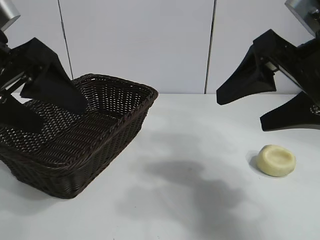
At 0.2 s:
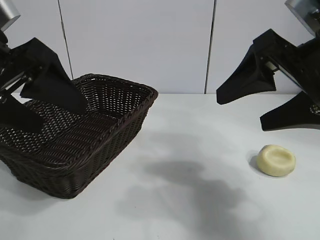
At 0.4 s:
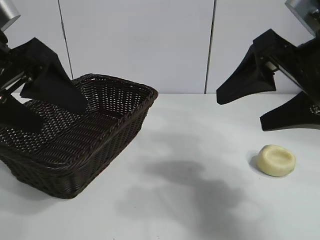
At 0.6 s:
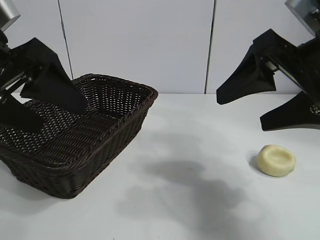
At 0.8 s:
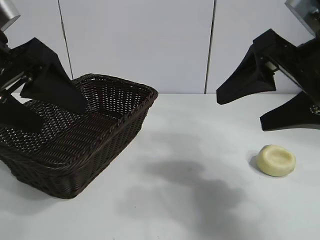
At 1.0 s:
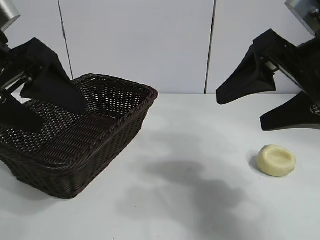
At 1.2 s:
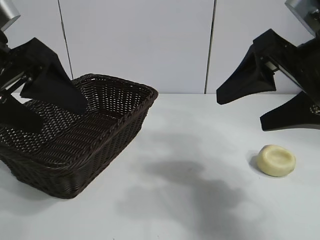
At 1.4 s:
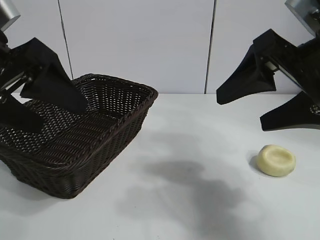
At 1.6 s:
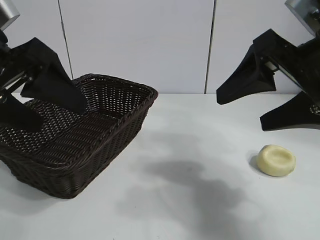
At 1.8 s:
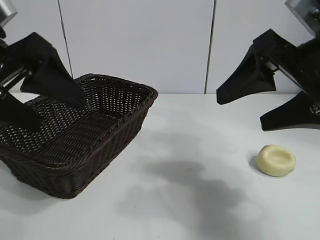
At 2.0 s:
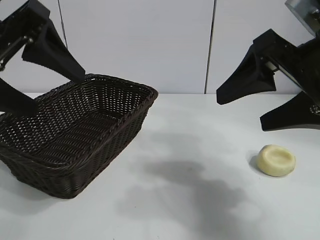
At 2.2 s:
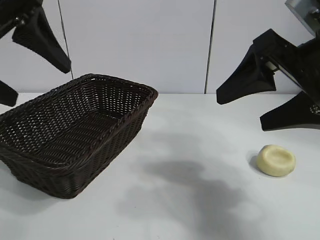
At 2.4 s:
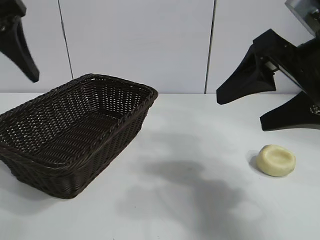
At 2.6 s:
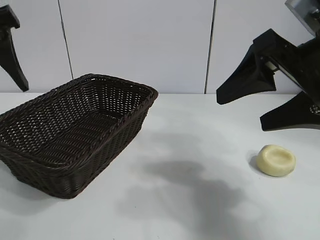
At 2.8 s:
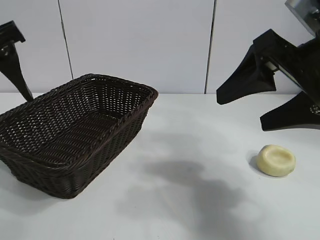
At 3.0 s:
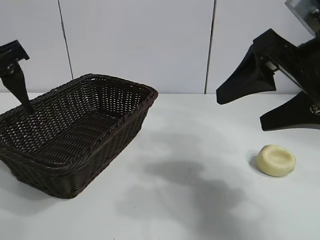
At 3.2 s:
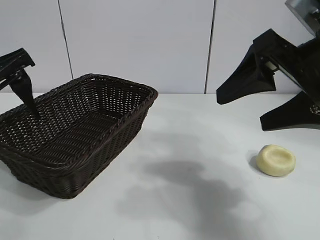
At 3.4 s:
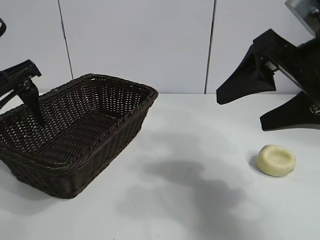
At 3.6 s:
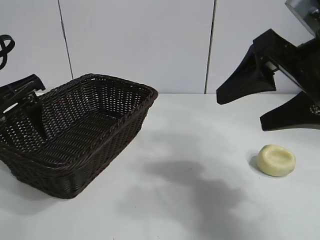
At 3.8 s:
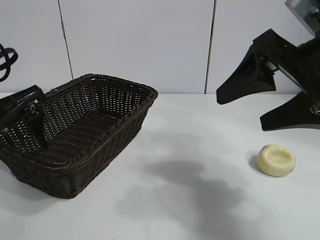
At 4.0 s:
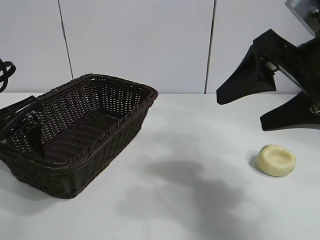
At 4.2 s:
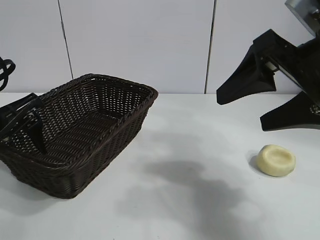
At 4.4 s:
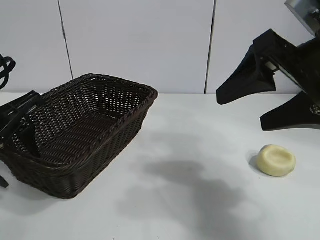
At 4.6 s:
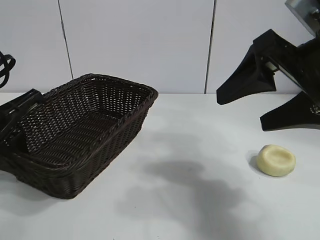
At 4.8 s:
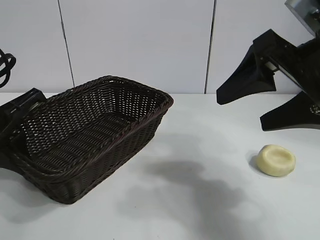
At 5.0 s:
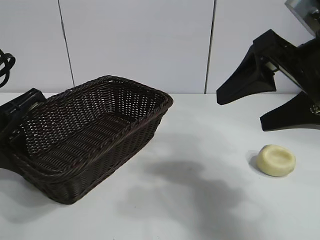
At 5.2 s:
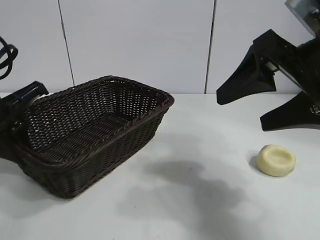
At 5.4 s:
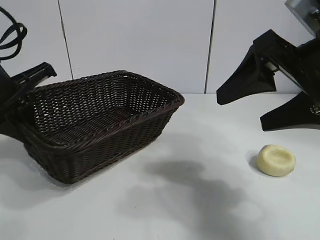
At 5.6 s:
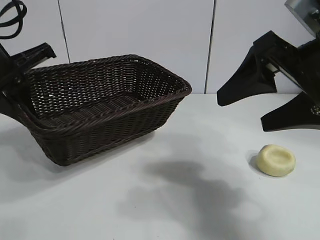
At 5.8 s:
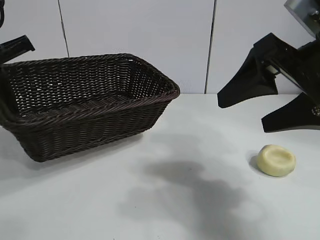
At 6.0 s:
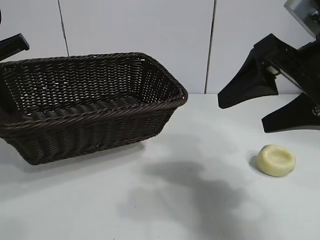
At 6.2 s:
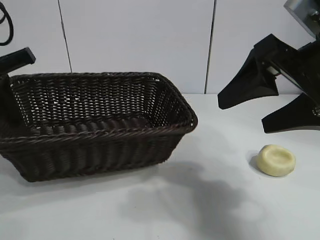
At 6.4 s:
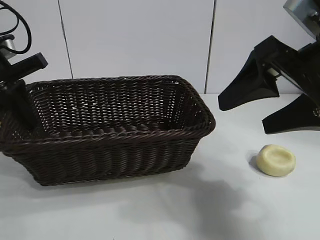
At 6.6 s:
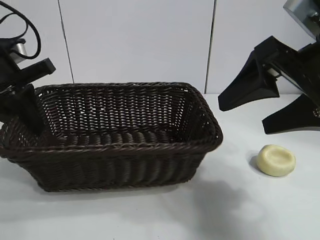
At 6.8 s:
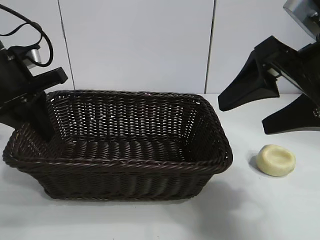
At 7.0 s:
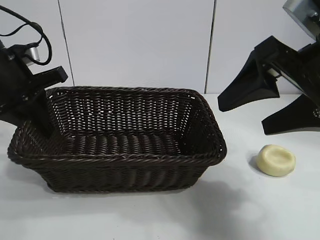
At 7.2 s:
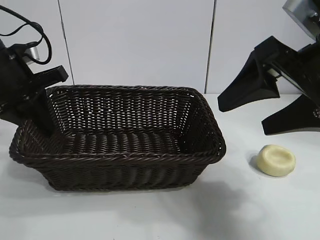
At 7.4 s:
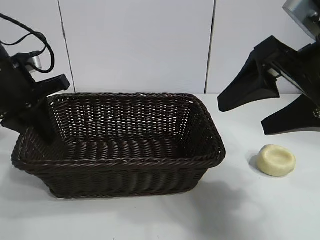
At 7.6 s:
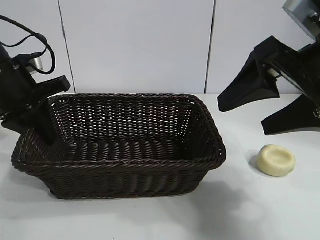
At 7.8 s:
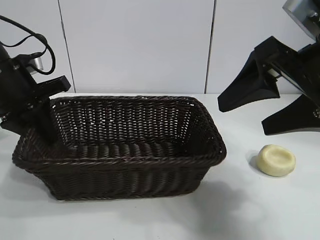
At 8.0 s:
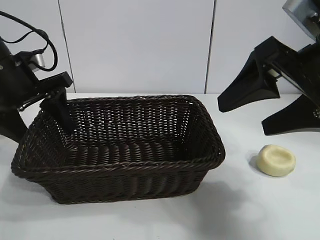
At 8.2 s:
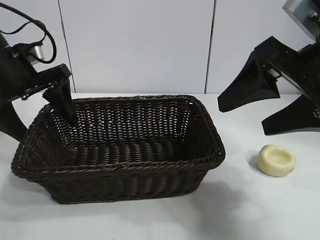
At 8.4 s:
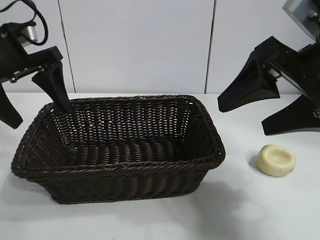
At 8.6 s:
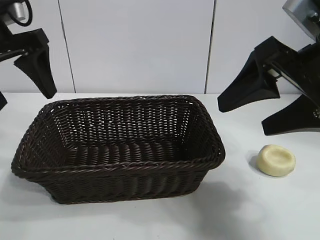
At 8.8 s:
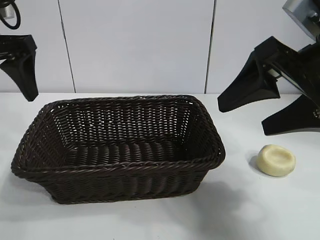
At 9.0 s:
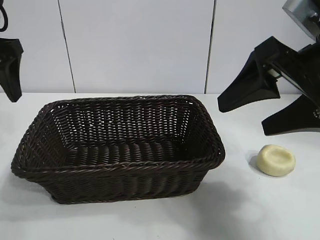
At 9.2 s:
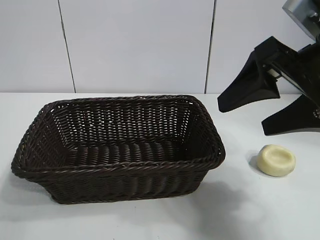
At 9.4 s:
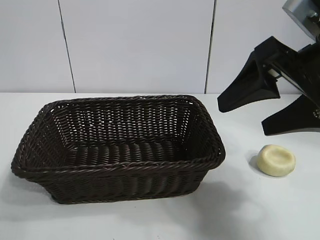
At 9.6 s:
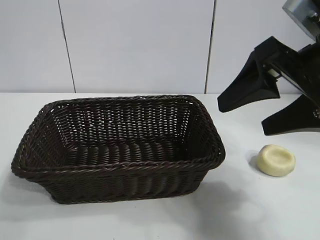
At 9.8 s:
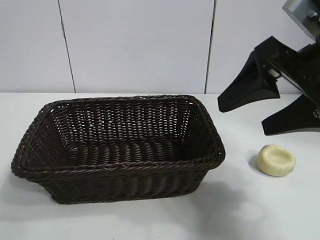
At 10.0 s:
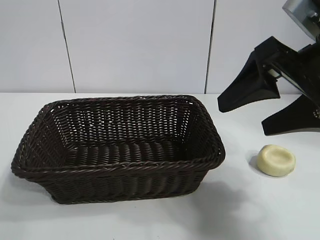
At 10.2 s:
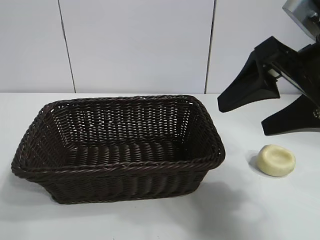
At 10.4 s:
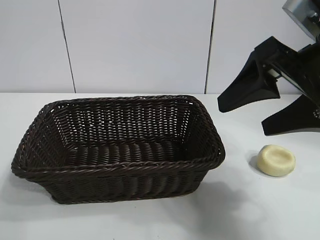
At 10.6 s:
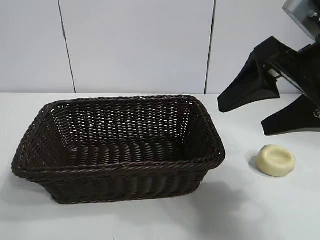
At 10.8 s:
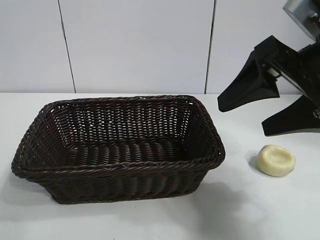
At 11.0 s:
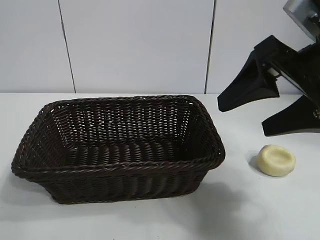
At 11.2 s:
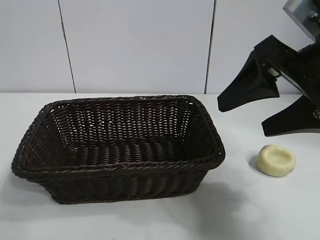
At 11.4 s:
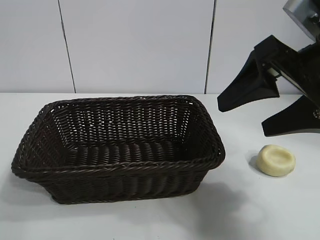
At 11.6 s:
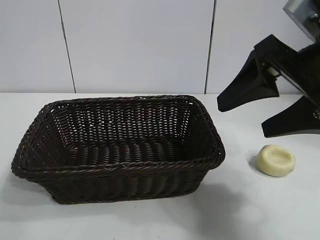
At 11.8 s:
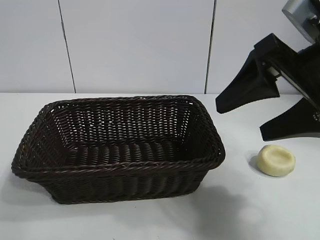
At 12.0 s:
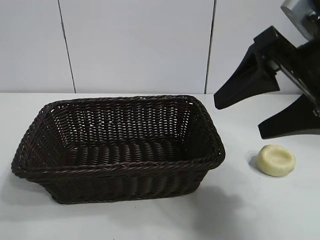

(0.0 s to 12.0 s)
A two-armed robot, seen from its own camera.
Task of the whole recording: pick up the egg yolk pastry and put it into the basket.
Step, 1.6 s - 4.6 s: Grasp the basket with left gripper.
Step, 5.0 s - 8.0 s: Place the basket in the center of view with left gripper.

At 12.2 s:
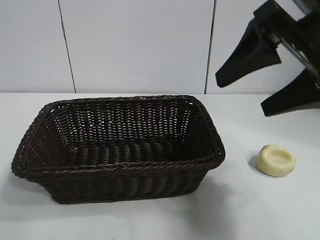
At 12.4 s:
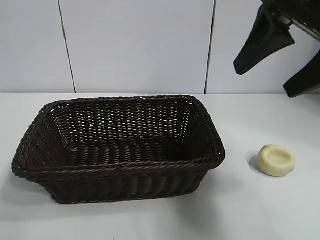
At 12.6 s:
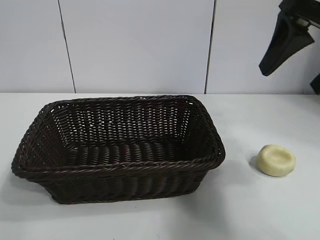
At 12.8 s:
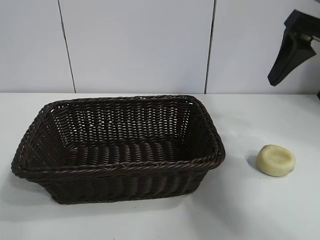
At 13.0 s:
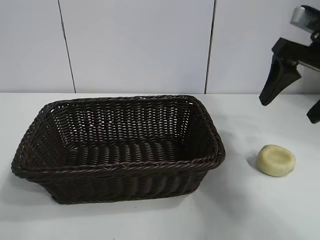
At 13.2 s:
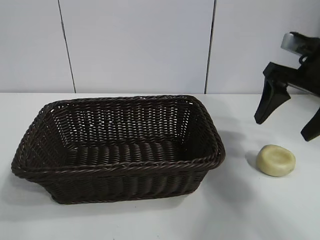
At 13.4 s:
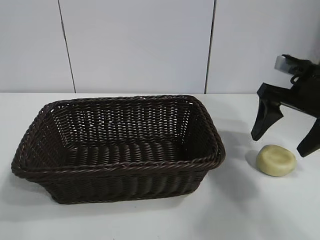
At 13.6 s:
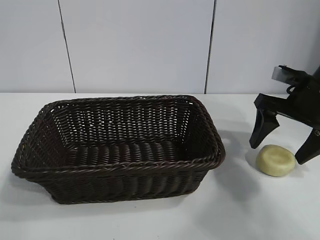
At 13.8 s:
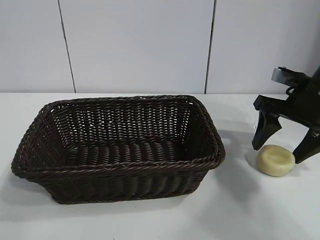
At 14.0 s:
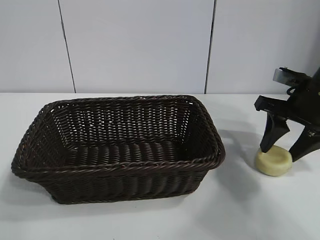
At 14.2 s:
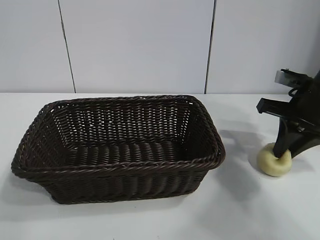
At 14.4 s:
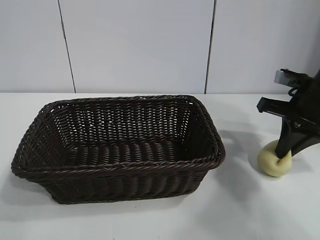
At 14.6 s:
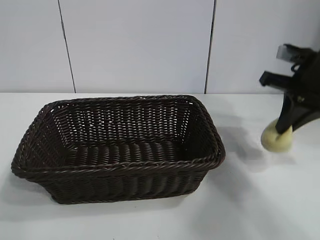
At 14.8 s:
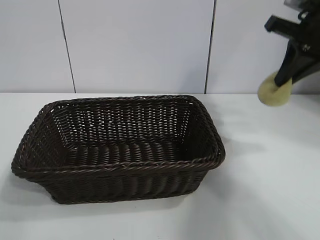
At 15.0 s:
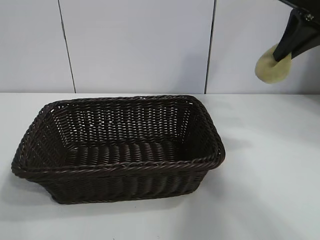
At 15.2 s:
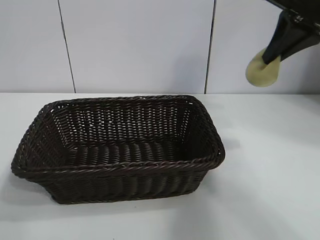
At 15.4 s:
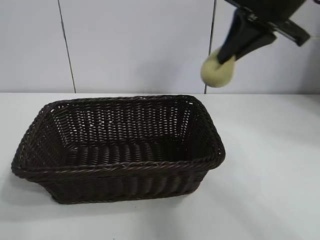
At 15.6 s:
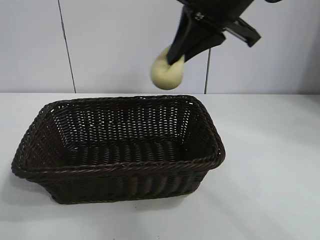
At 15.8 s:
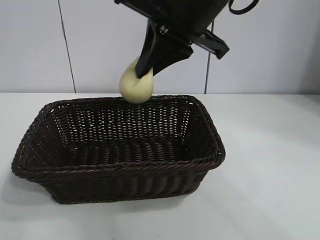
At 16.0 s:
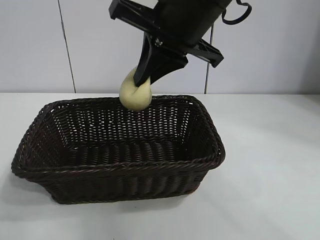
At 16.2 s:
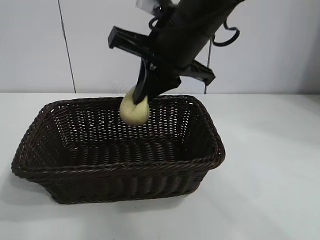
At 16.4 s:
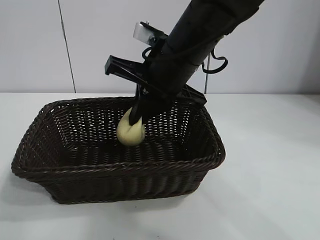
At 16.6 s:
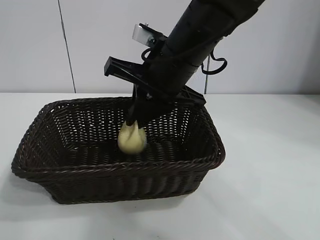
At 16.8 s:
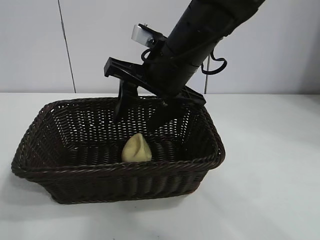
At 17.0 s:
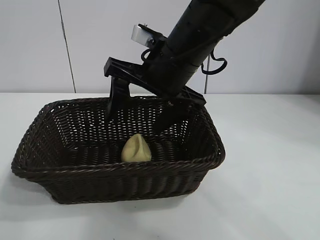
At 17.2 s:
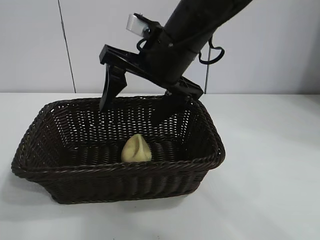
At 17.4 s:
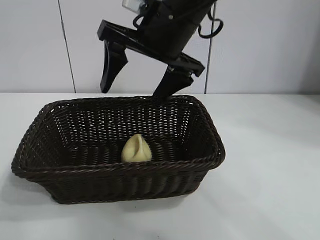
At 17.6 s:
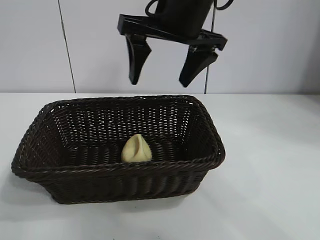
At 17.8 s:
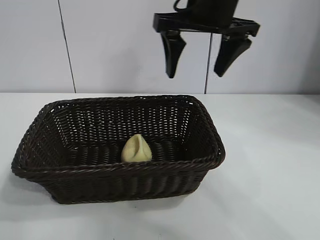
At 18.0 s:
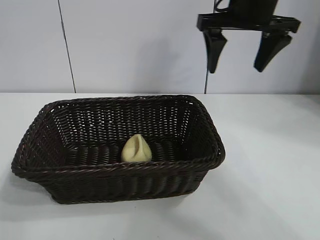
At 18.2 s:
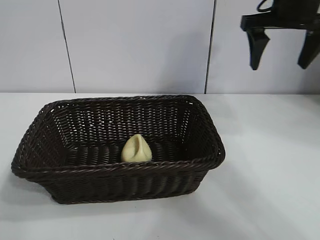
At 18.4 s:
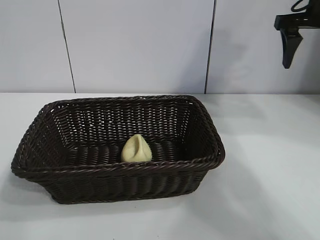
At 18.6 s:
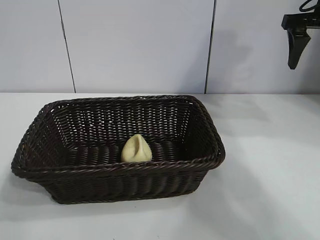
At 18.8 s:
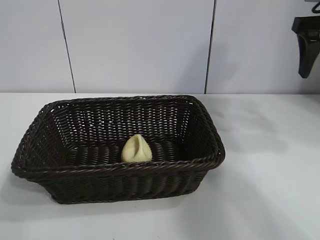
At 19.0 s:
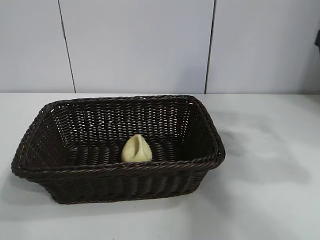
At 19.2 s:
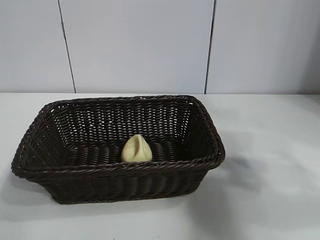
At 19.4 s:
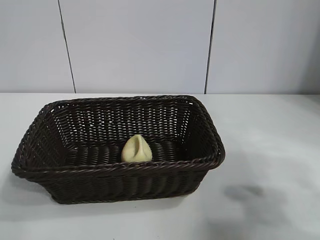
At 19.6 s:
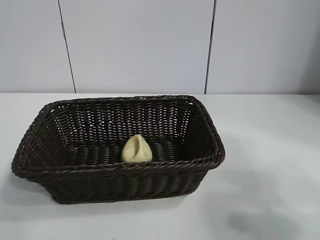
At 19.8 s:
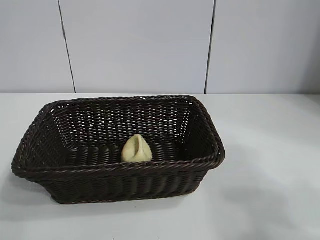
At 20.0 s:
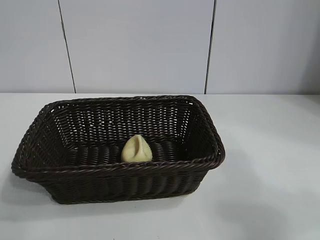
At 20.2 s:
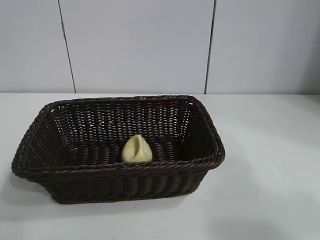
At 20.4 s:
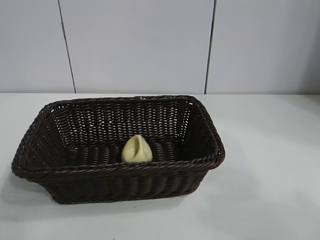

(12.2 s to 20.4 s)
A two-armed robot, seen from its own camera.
Task of the whole recording: pick up the egg yolk pastry and put it into the basket.
Step, 12.2 s - 14.2 s: Grasp egg yolk pastry with right gripper.
Step, 14.4 s - 17.0 s: Place the egg yolk pastry in the basket with right gripper.
